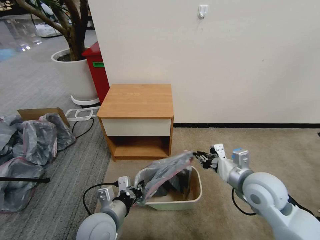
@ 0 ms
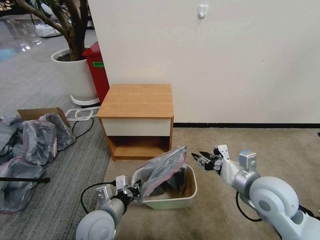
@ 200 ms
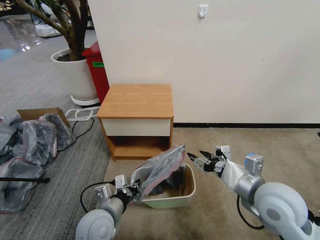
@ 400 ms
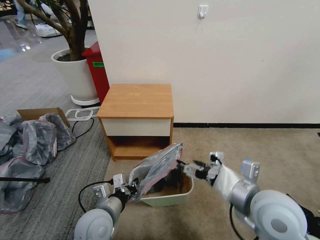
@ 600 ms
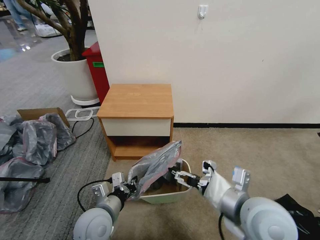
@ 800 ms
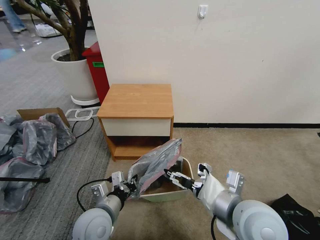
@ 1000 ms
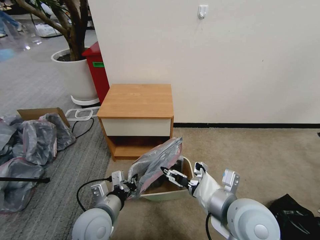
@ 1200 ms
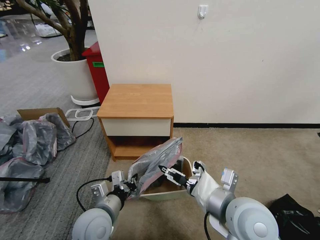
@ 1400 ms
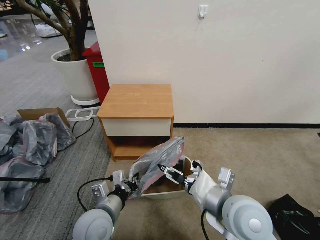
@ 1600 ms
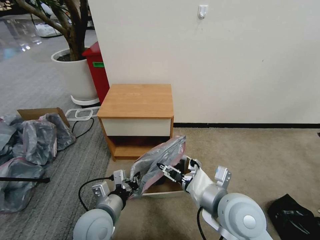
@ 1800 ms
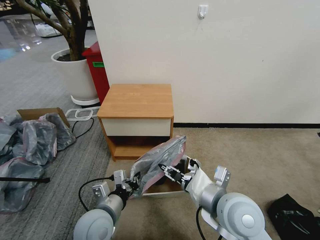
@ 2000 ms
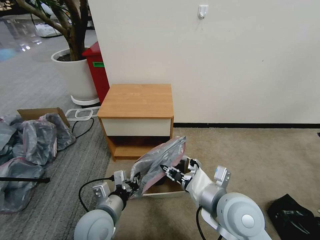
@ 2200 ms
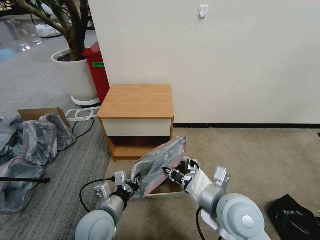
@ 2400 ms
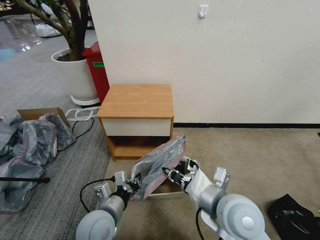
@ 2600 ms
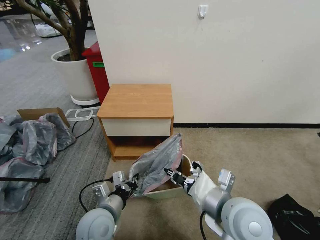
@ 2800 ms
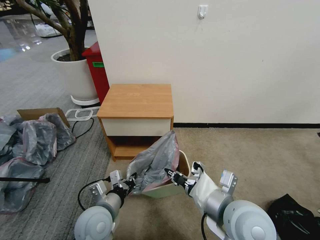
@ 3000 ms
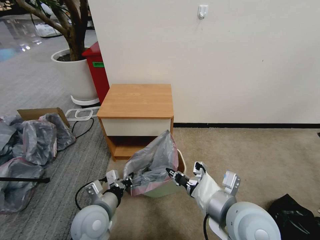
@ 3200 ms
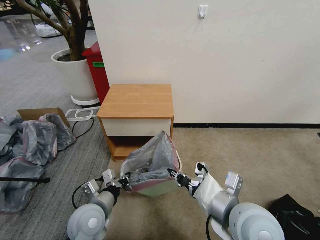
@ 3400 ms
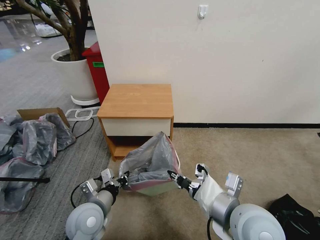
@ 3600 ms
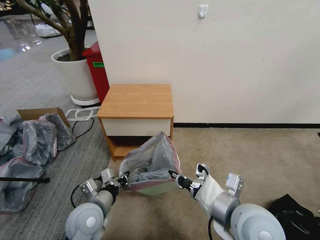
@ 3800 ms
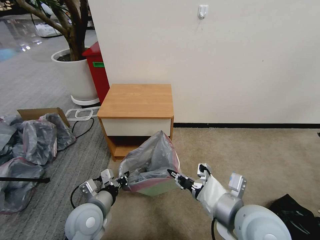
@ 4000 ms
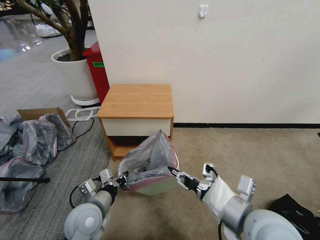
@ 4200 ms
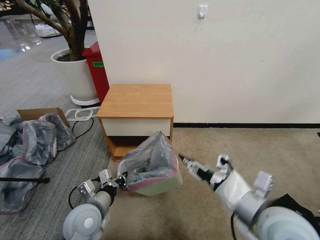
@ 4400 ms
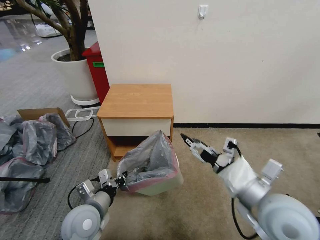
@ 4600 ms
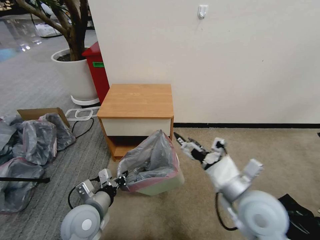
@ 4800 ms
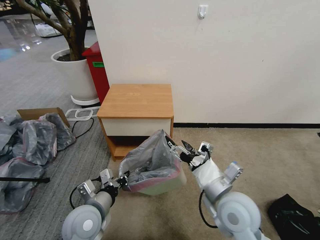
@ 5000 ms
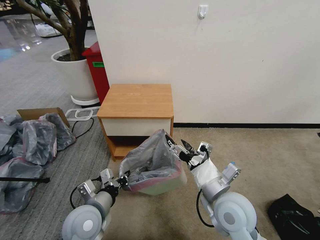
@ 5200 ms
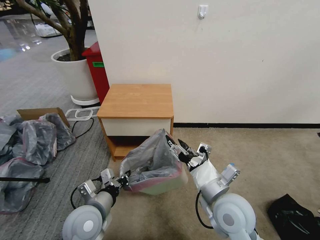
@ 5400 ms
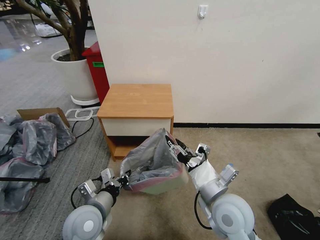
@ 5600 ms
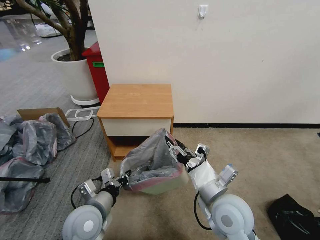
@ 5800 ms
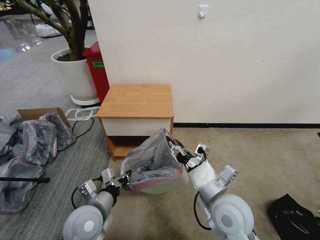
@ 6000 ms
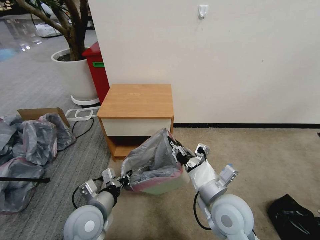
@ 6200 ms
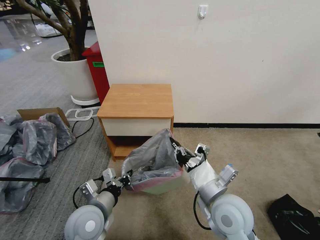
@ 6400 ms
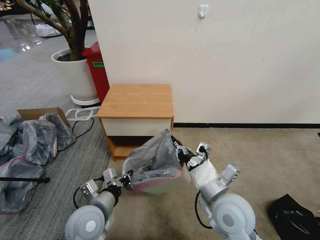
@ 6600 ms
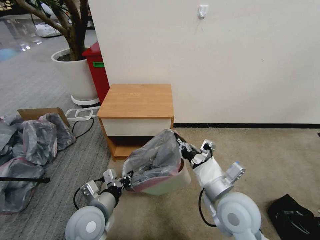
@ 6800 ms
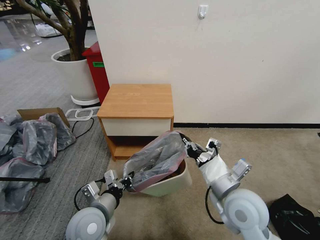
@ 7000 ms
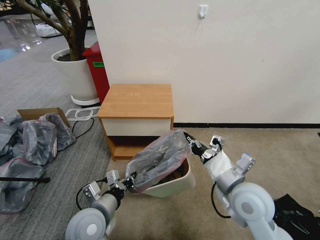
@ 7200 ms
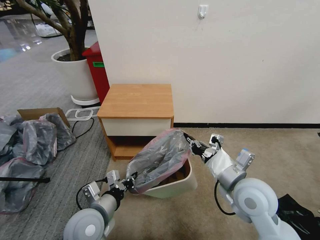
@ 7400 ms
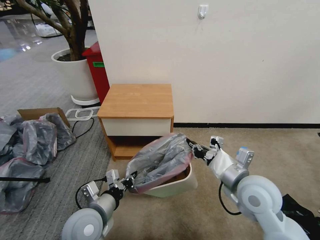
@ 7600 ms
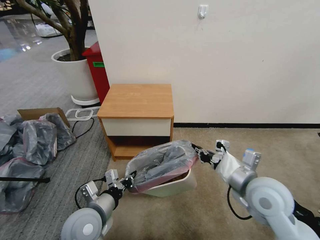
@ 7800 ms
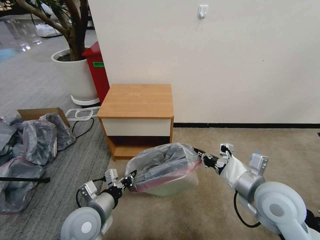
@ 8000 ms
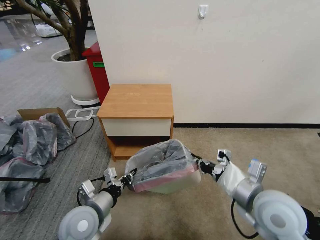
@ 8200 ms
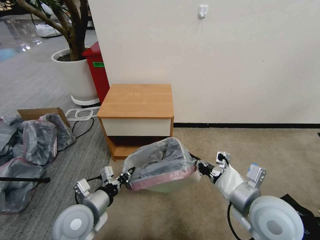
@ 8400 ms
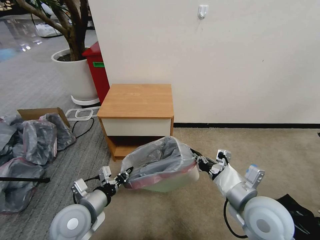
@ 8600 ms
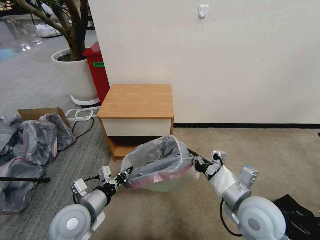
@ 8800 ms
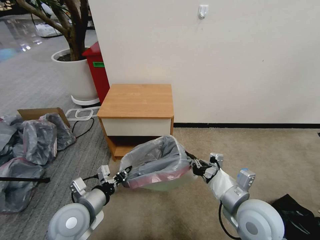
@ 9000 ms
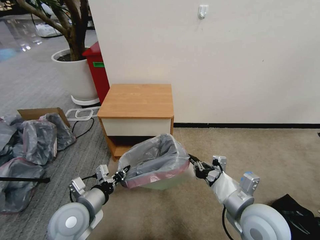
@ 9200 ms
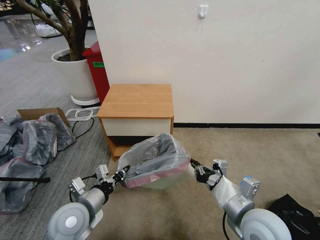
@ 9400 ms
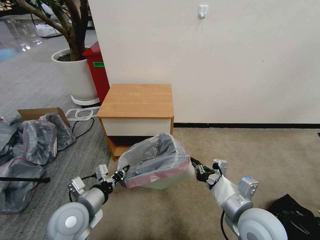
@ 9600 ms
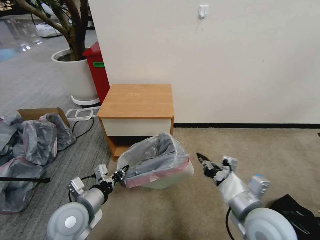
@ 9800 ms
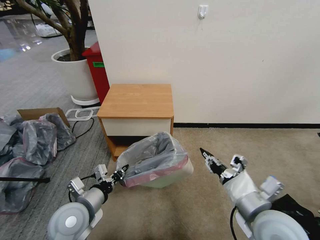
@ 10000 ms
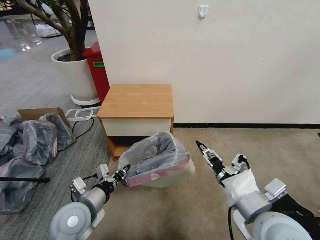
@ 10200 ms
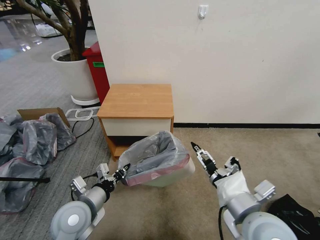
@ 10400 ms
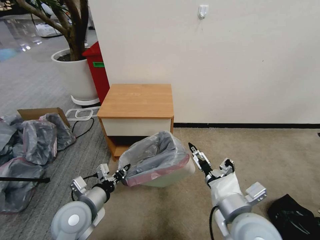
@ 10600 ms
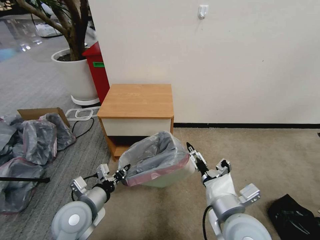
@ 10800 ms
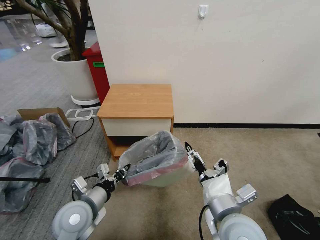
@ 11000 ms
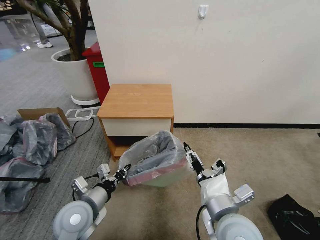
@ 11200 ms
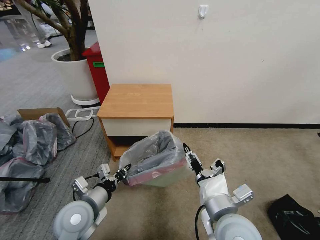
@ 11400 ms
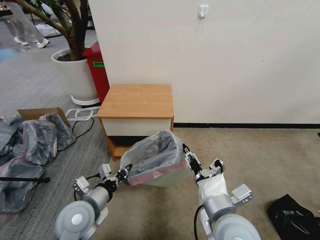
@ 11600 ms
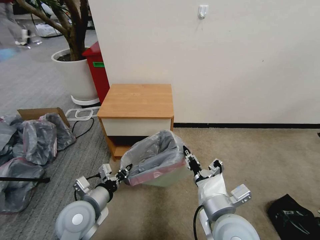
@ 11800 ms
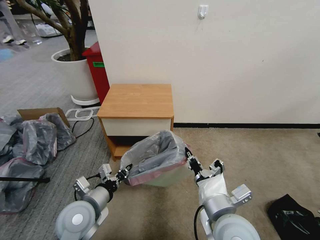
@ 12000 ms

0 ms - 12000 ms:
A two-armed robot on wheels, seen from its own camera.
Task of the whole recording: Pick up the garbage bag from the table and place it over the trash can.
0 ms - 1600 ms: The right gripper shifts roughly 10 cm to the left and backward, and opens up.
1600 ms - 3000 ms: The right gripper closes up.
3000 ms - 4400 ms: The right gripper travels to the right by roughly 5 cm, and opens its fingers.
4400 ms - 6000 ms: The right gripper goes approximately 10 cm to the left and downward, and opens, then closes once more.
6000 ms - 7600 ms: The right gripper heads to the right, covering approximately 5 cm, and closes its fingers.
7600 ms - 9000 ms: The right gripper shifts some 5 cm backward.
9000 ms - 10400 ms: The right gripper shifts by some 5 cm, and opens up.
10400 ms - 12000 ms: The right gripper moves to the left, roughly 5 cm, and closes up.

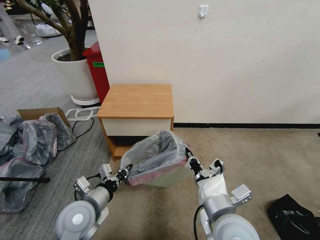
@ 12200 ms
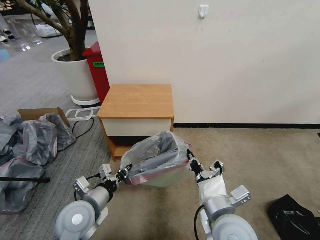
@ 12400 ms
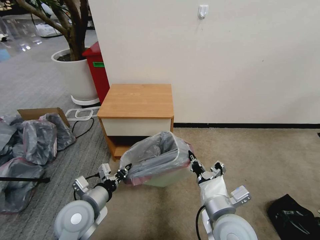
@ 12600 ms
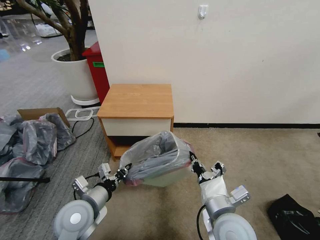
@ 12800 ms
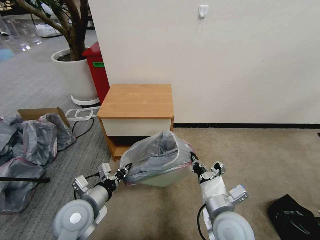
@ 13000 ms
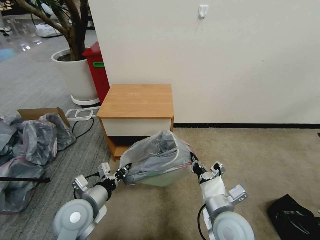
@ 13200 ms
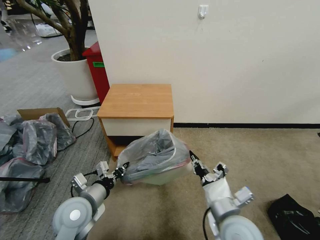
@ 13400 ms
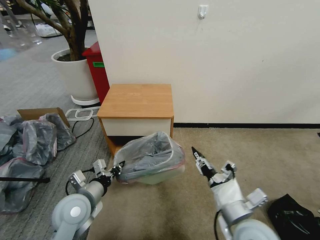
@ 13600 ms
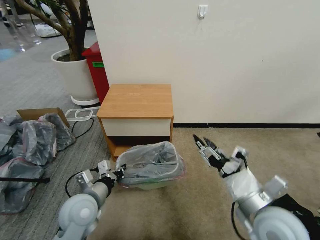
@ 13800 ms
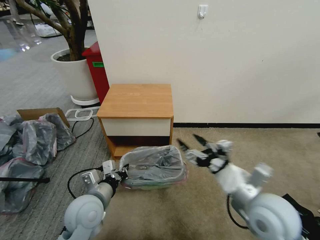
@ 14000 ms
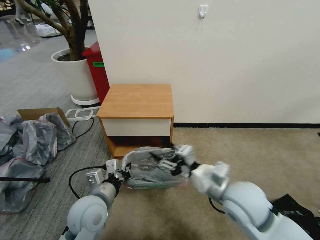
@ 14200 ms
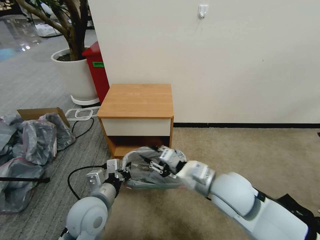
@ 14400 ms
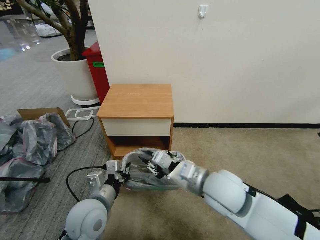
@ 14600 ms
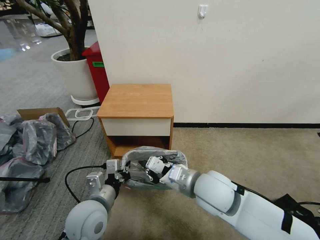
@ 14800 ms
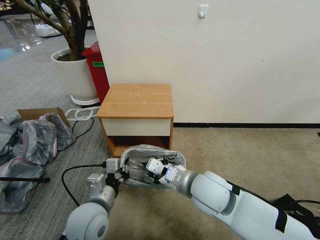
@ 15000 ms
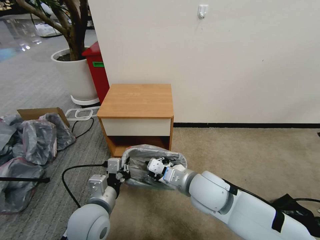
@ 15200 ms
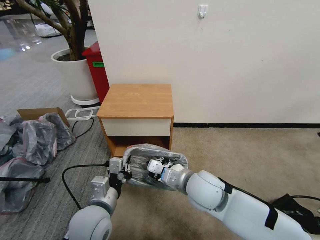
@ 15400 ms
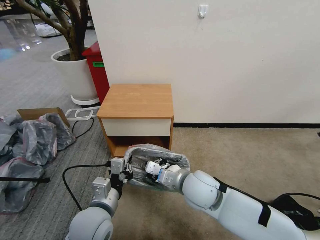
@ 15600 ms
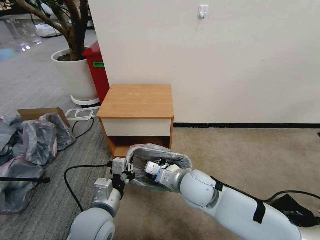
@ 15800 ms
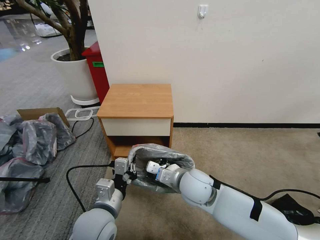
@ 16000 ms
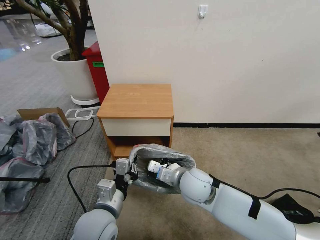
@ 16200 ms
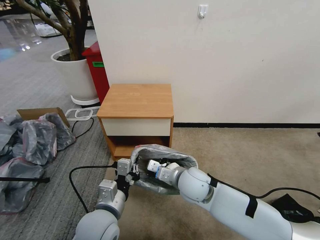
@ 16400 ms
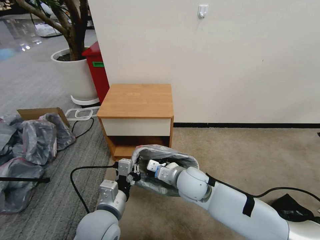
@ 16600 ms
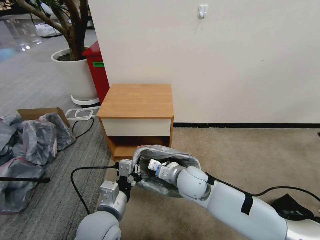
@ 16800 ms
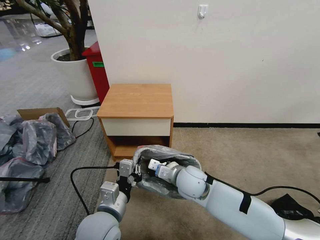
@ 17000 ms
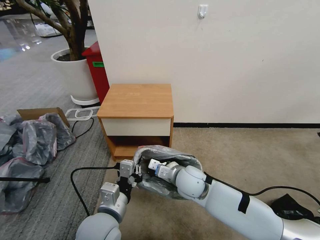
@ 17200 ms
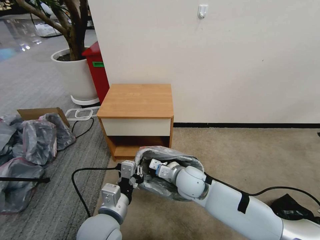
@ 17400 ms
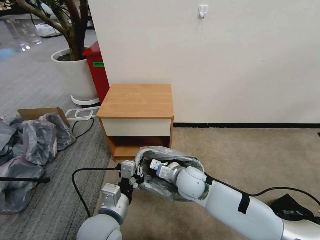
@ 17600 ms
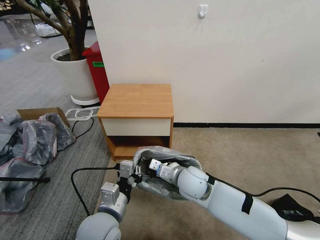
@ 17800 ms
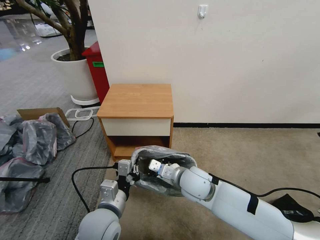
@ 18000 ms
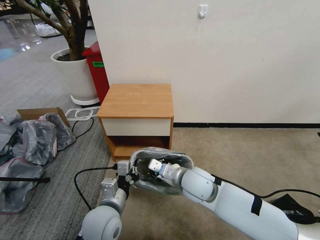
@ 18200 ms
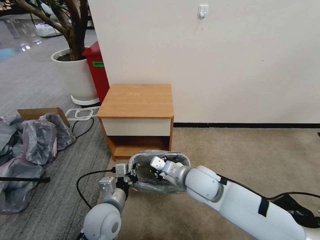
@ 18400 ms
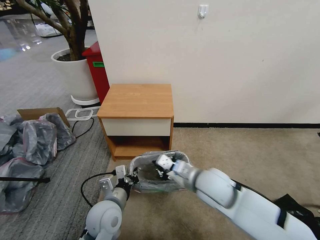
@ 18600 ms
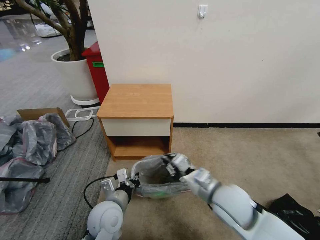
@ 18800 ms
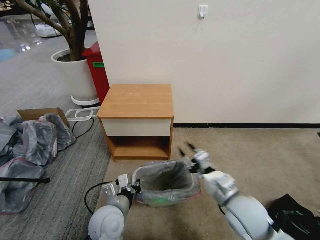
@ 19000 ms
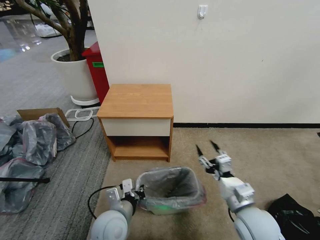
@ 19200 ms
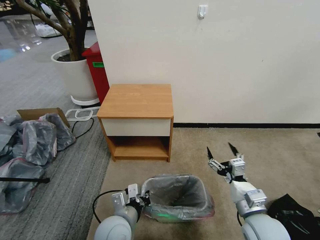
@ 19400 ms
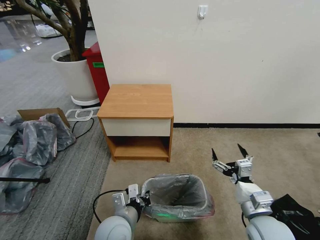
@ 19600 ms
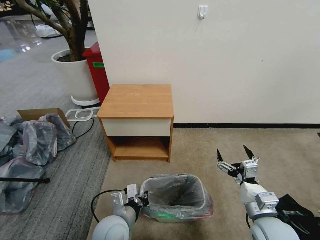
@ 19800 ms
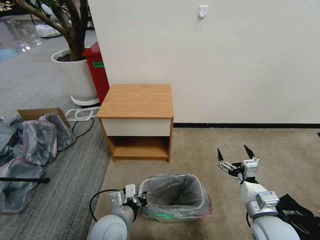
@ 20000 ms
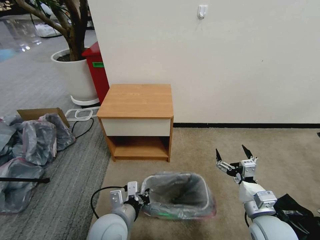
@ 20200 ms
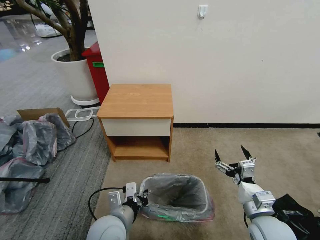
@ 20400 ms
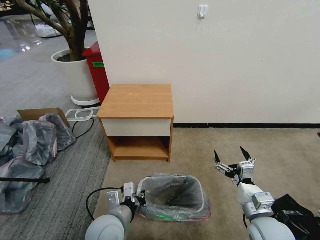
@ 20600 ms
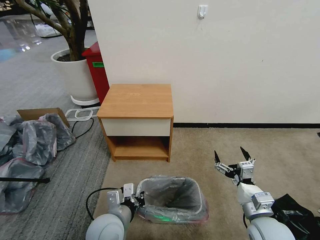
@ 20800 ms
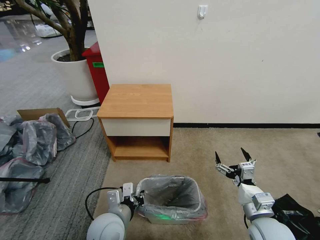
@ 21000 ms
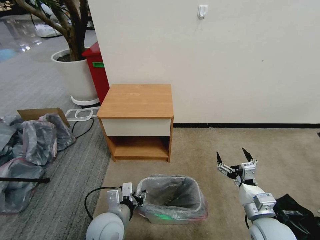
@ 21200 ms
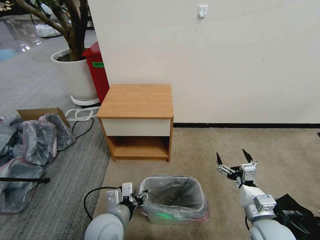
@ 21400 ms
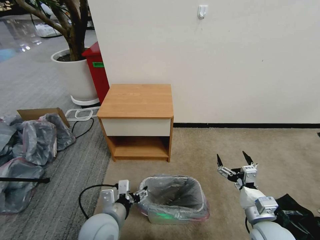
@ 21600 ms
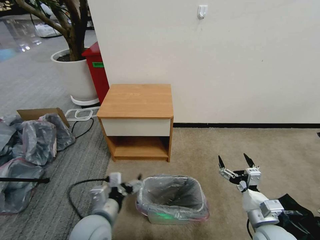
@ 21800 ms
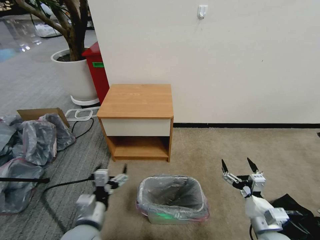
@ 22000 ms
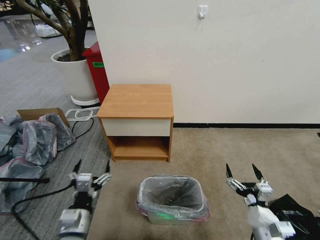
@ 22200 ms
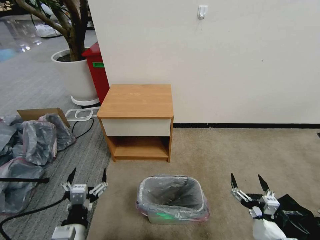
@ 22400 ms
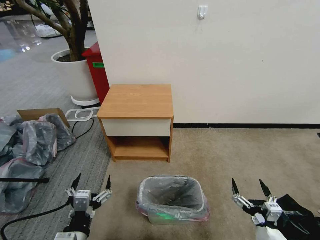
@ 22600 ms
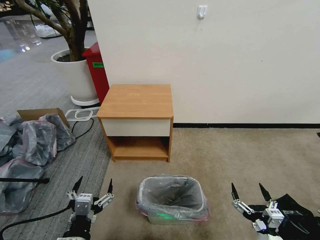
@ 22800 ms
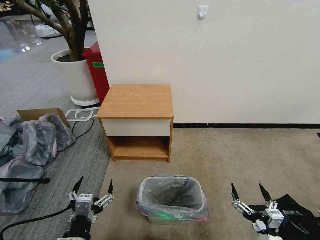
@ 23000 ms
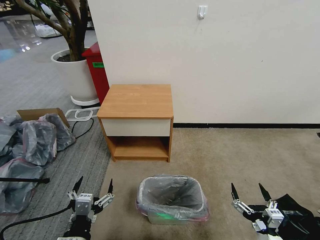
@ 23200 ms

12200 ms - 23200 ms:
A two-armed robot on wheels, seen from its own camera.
Task of the whole recording: Pick up the garbage bag from the table and place it over the trash can.
12200 ms - 13800 ms: The right gripper shifts some 10 cm to the right, and opens up.
13800 ms - 15400 ms: The left gripper moves to the right, roughly 5 cm; the right gripper heads to the left and forward, covering some 15 cm, and closes up.
15400 ms - 17000 ms: The right gripper goes roughly 5 cm downward.
17000 ms - 18400 ms: The left gripper ends up roughly 5 cm from where it was; the right gripper moves roughly 5 cm.
18400 ms - 20000 ms: The right gripper heads to the right and backward, covering about 20 cm, and opens.
20000 ms - 21600 ms: The left gripper opens its fingers.
21600 ms - 23200 ms: The right gripper goes approximately 10 cm backward, while the left gripper moves backward and to the left, approximately 15 cm.
